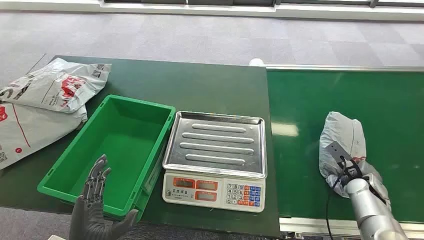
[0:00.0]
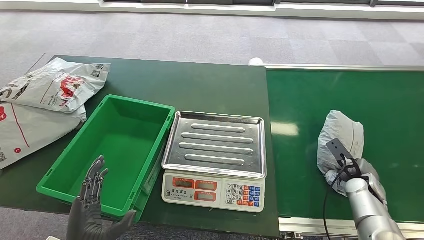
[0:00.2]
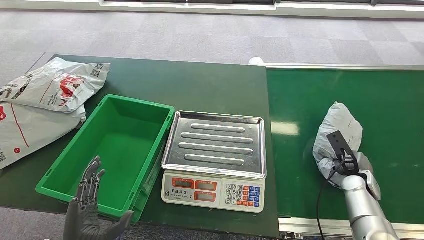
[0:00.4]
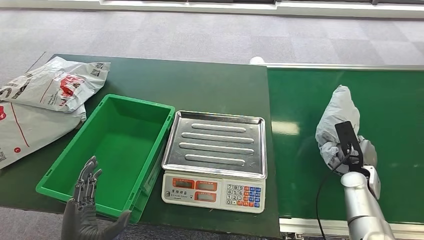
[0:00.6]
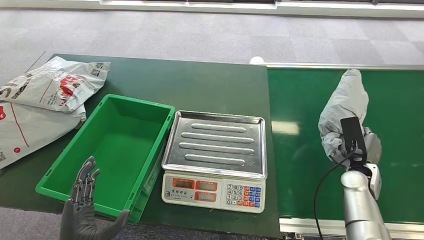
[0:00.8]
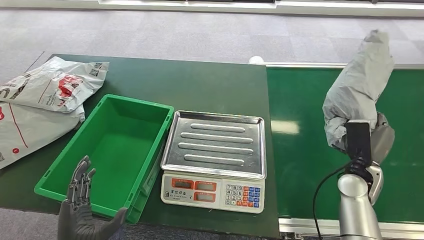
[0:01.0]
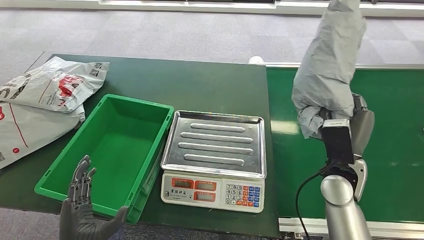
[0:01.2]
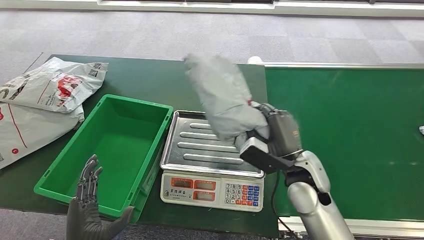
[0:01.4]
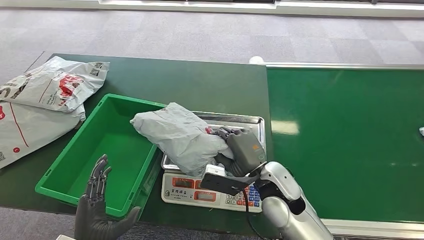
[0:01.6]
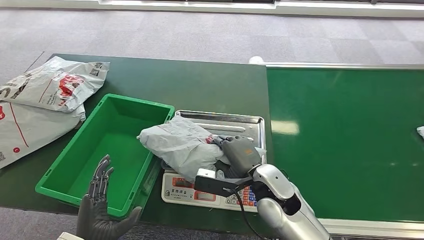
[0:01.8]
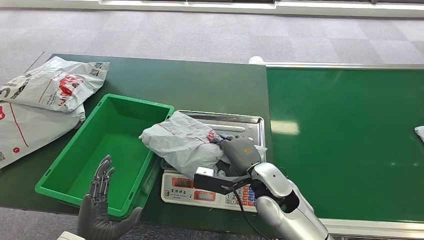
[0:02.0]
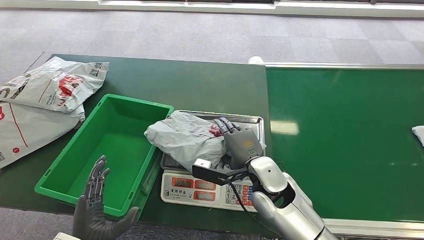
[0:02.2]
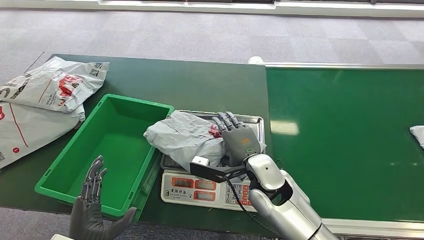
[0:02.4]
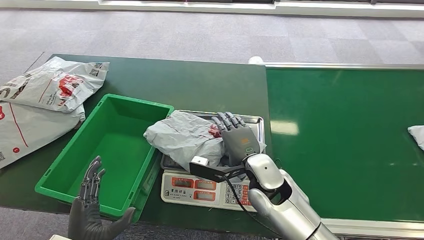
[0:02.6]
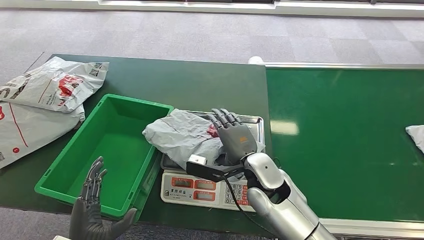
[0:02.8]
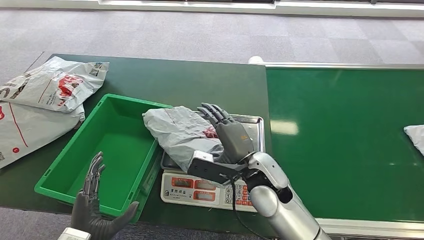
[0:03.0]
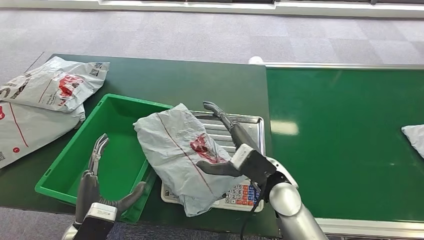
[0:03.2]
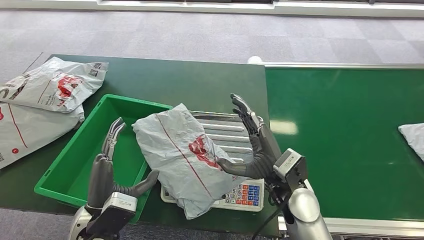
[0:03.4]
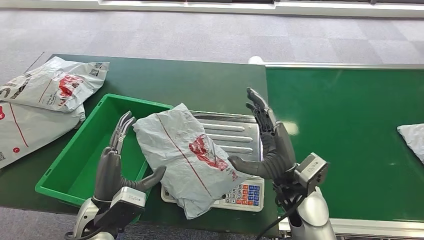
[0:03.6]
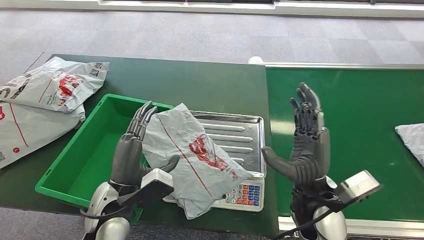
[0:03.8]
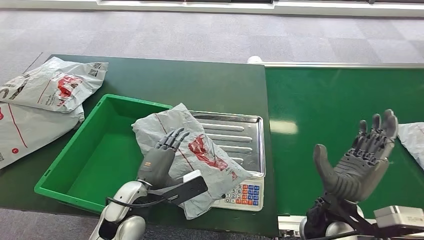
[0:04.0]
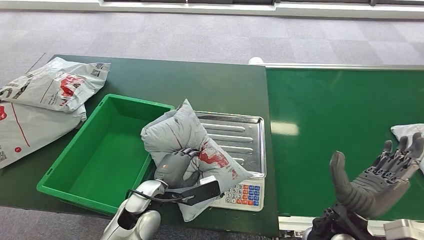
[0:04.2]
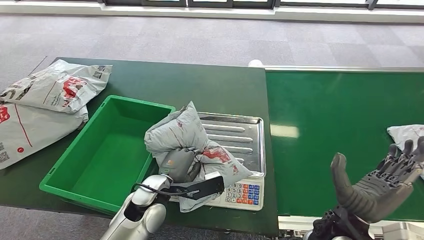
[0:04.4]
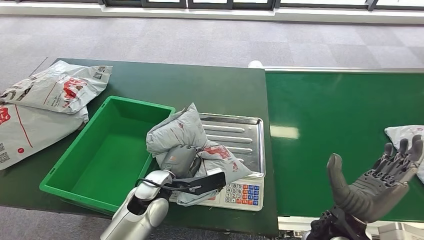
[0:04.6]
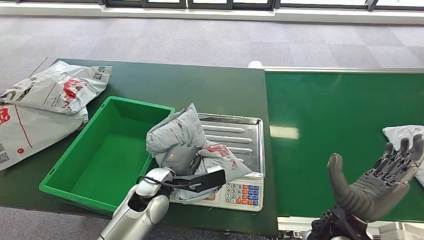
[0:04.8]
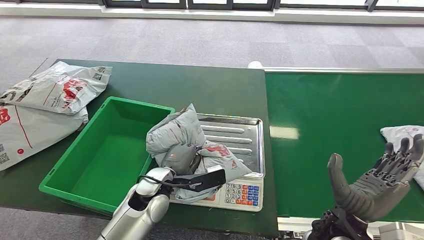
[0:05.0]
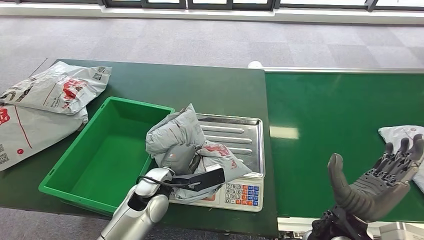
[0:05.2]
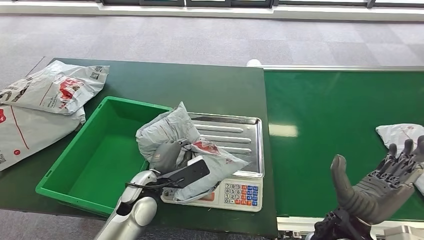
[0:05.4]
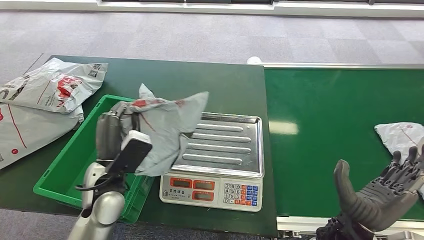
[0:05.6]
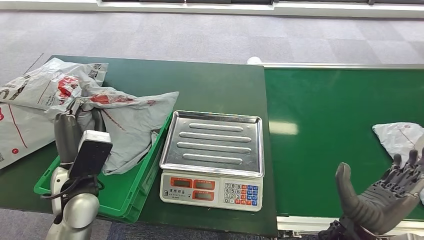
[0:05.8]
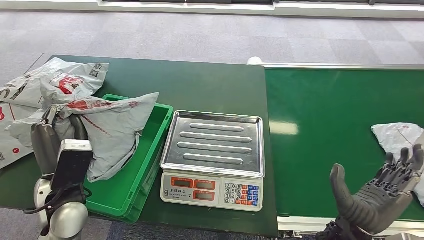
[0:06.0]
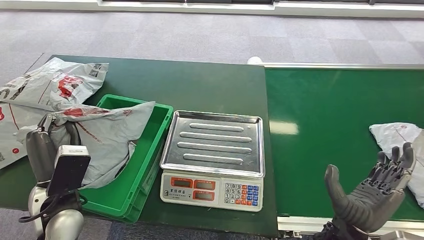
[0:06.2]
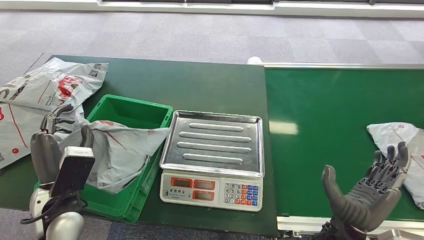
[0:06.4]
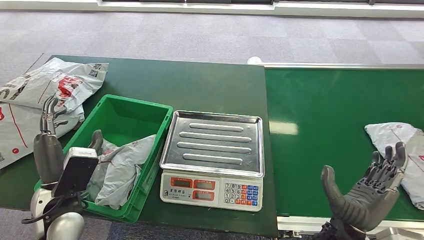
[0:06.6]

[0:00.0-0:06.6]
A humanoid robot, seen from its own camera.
Step, 0:00.0 to 0:00.8: Pick up the package from the conveyor belt.
Step, 0:01.0 to 0:02.0: Place the package onto the inbound machine.
Step, 0:04.4 to 0:05.6: Pick up the package from the inbound machine.
Step, 0:06.0 to 0:06.6: Place the package into the parcel locker.
0:01.6 to 0:03.2: The left hand ends up approximately 5 cm from where it was.
